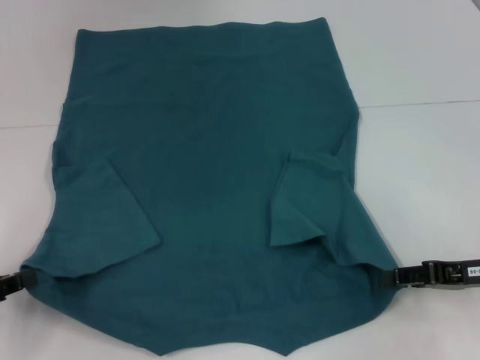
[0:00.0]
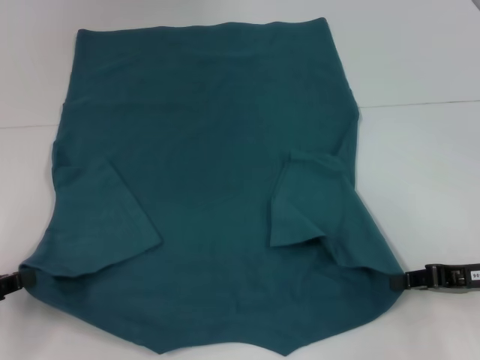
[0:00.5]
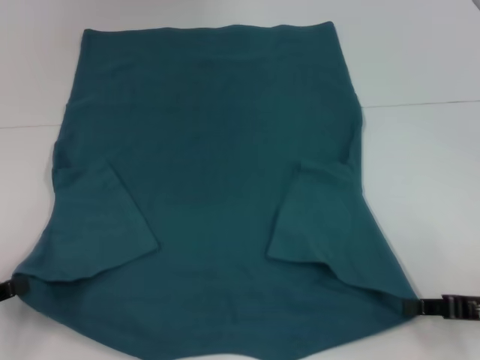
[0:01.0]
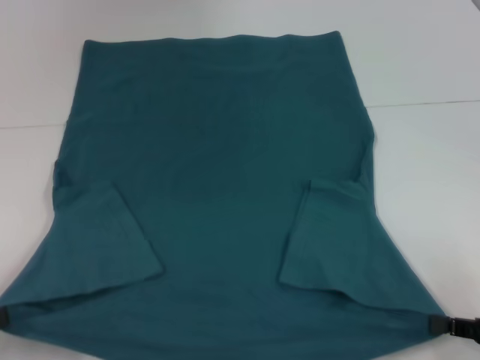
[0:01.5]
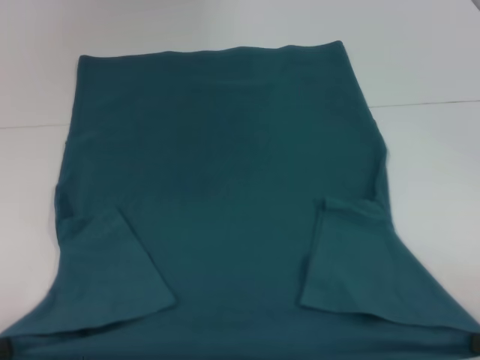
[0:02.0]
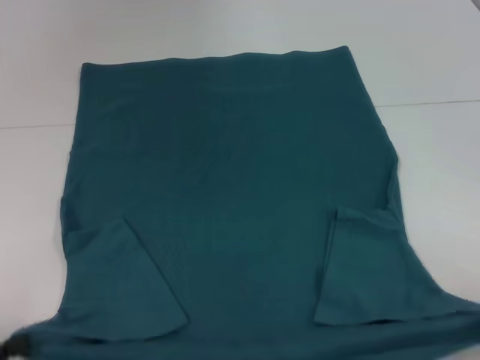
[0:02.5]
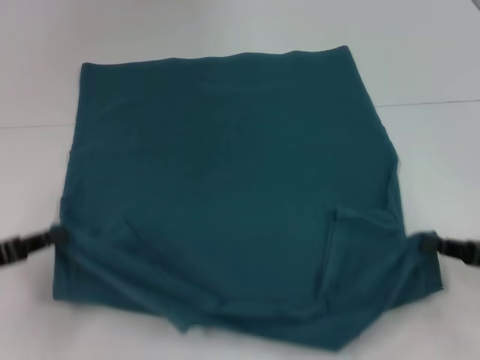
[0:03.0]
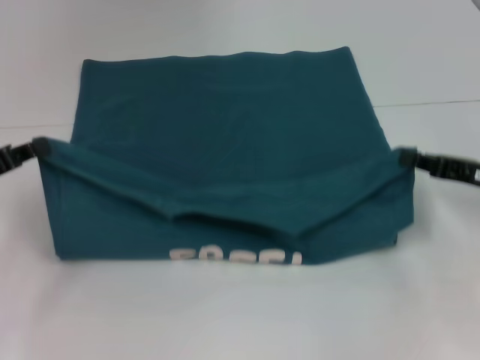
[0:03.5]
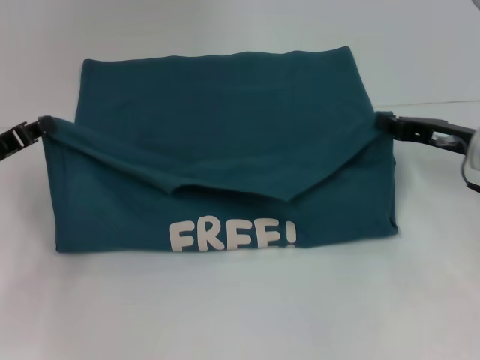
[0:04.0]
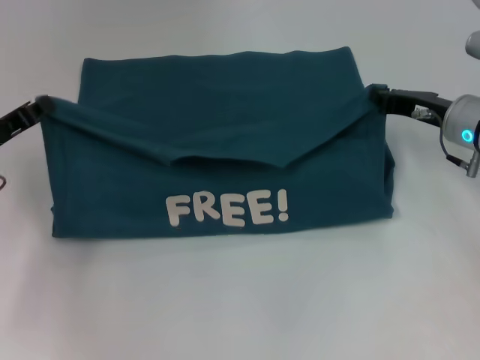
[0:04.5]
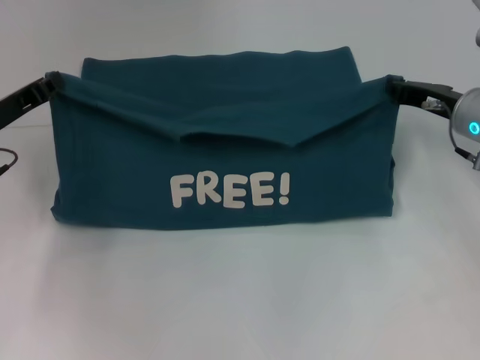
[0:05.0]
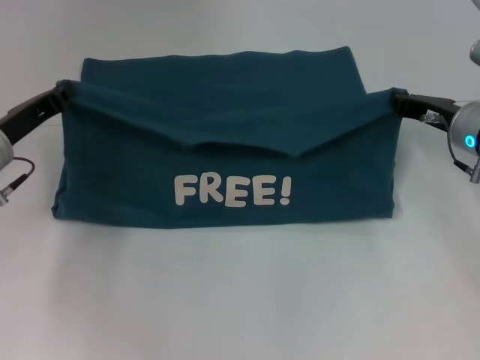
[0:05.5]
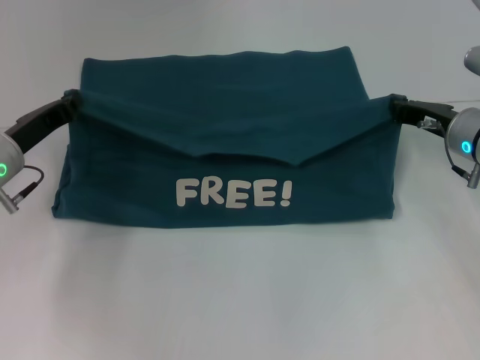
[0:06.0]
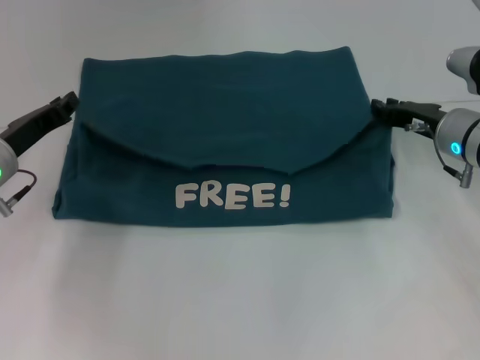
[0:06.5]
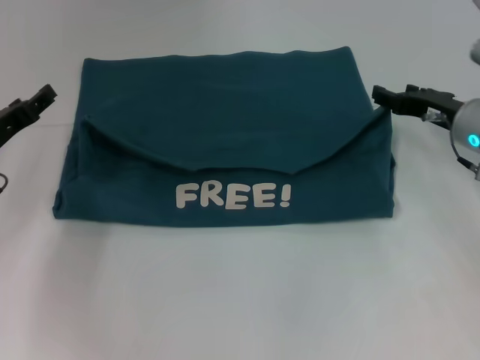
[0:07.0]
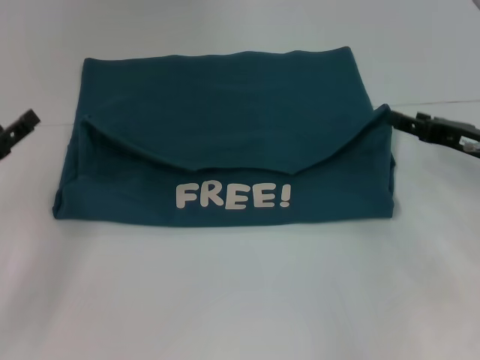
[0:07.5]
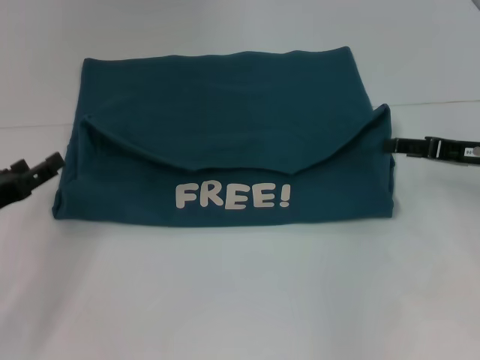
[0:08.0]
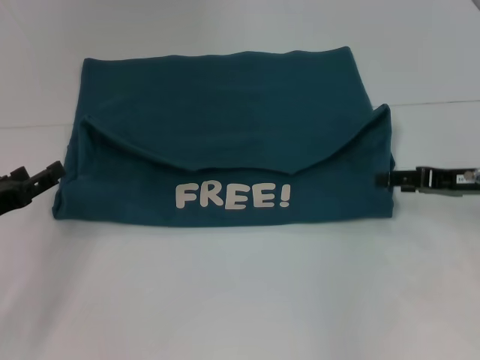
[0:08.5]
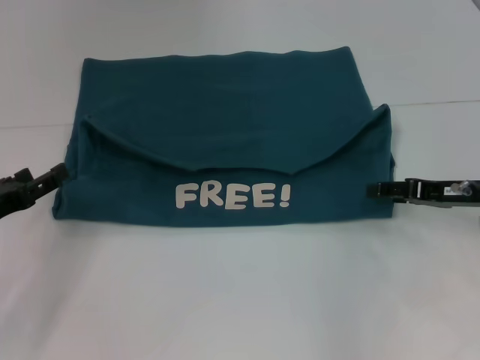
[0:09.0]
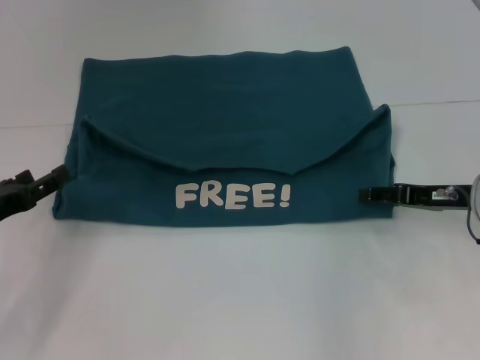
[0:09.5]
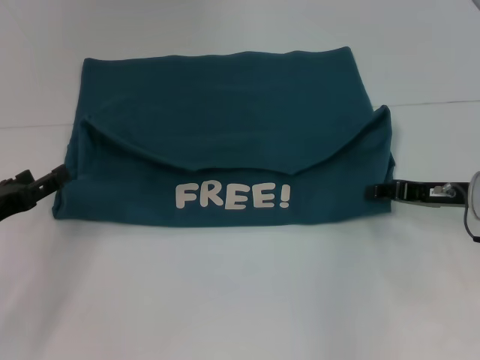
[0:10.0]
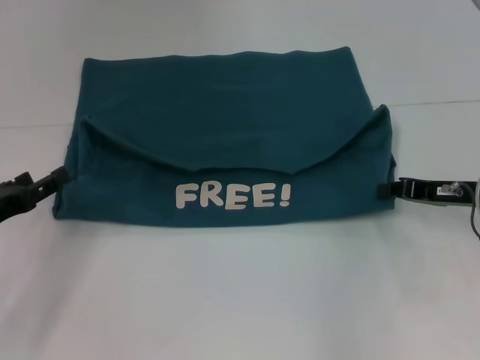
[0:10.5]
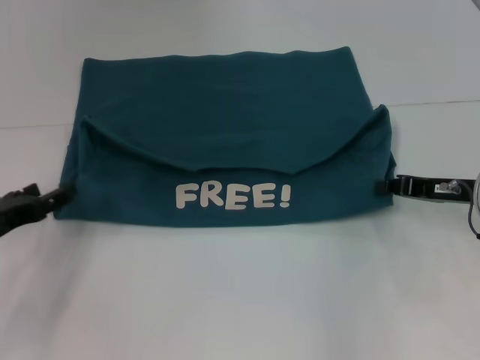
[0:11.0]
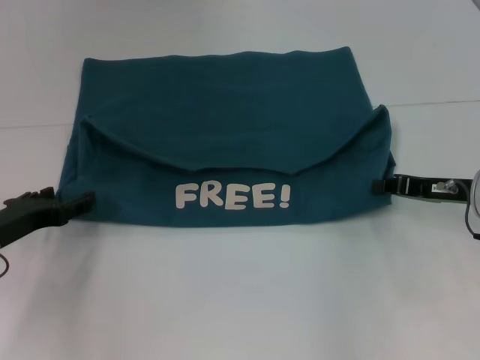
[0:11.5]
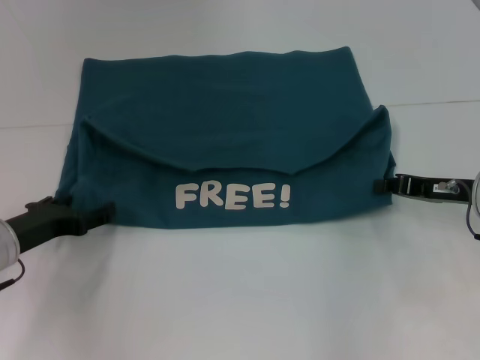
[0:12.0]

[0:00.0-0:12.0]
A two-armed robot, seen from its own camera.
Step, 0:01.0 to 0:06.5: Fold the clothes to the left.
Step, 0:01.0 to 0:06.5: Fold the clothes to the right.
0:00.0 to 0:02.0: The left gripper shifts about 10 cm backward. Meanwhile the right gripper shifts approximately 15 cm backward and to the right, and closes up.
0:02.0 to 0:04.0: The right gripper heads forward and to the left, covering about 25 cm. The left gripper heads forward, covering approximately 20 cm.
0:04.0 to 0:06.0: The left gripper travels to the right by some 5 cm.
0:06.0 to 0:08.0: The right gripper shifts some 5 cm to the right, and opens up. Meanwhile the left gripper shifts some 10 cm backward and to the left, and opens up.
0:08.0 to 0:10.0: The grippers make only small movements.
0:10.0 to 0:12.0: The left gripper moves approximately 5 cm; the right gripper closes its fingers.

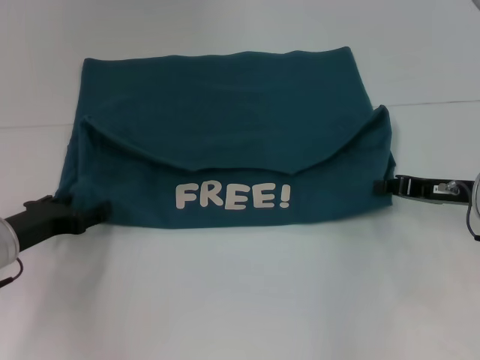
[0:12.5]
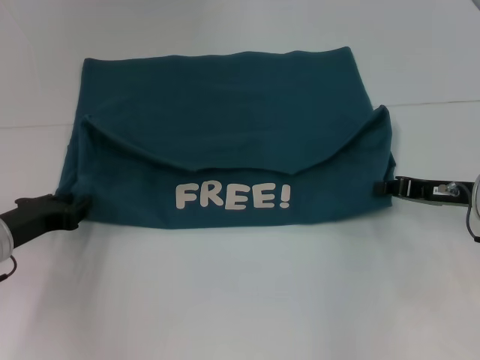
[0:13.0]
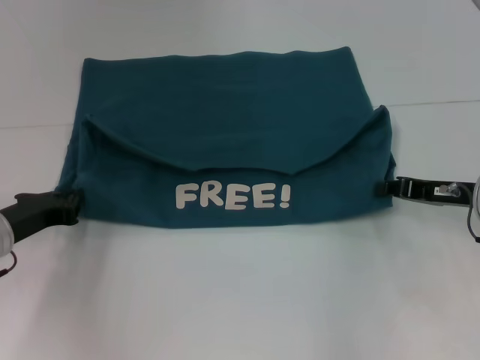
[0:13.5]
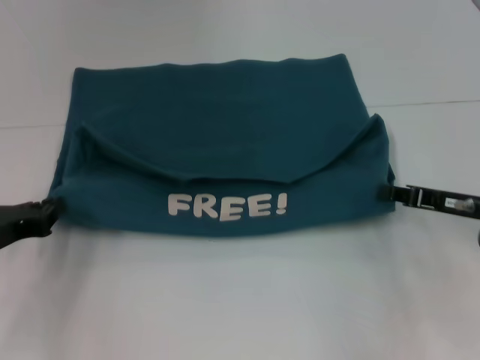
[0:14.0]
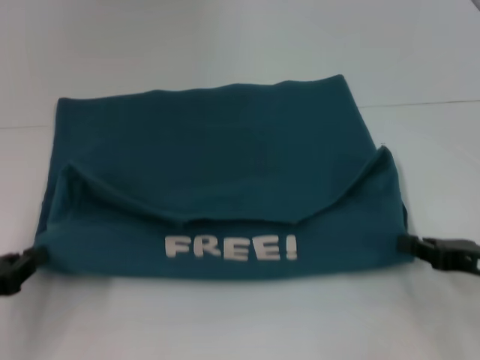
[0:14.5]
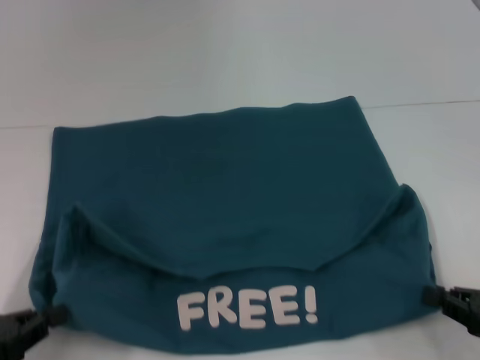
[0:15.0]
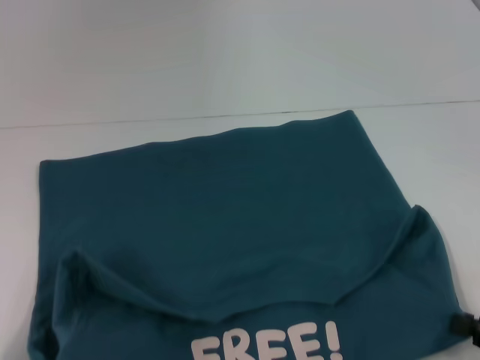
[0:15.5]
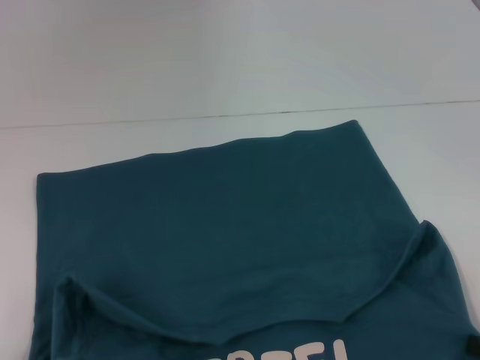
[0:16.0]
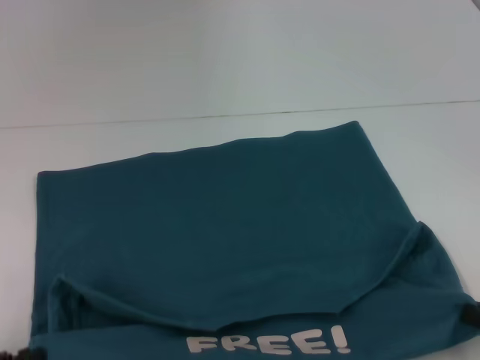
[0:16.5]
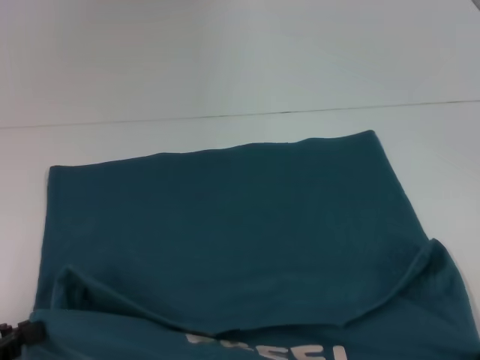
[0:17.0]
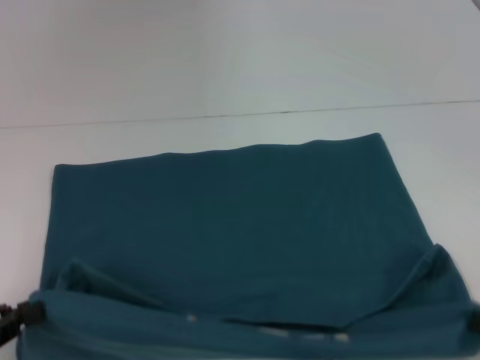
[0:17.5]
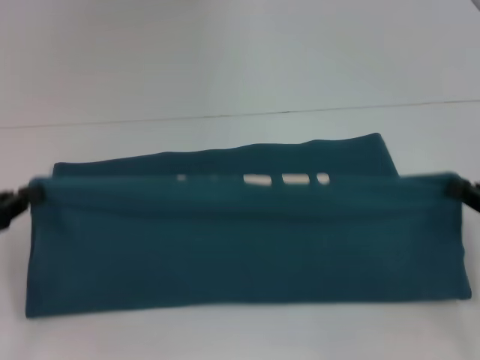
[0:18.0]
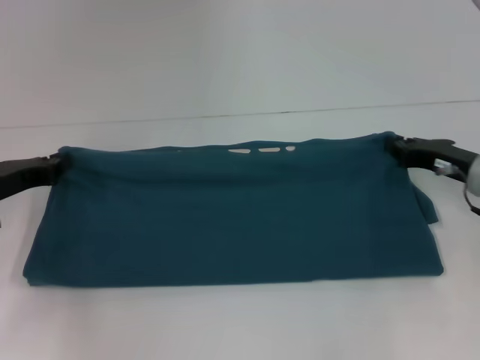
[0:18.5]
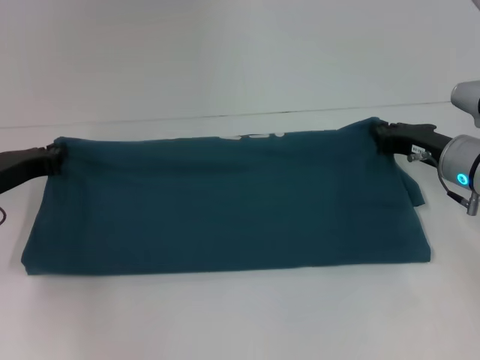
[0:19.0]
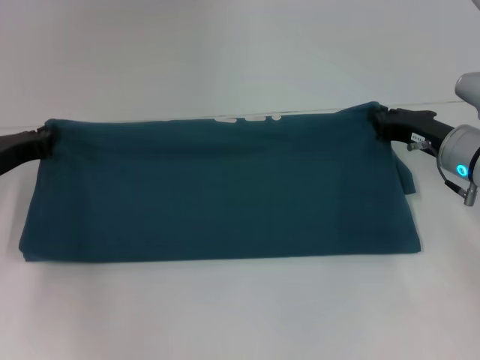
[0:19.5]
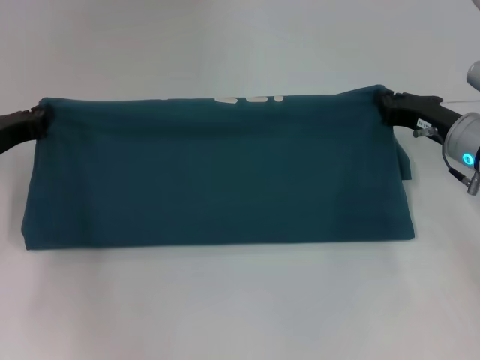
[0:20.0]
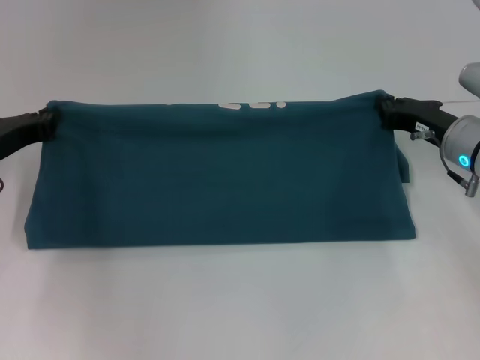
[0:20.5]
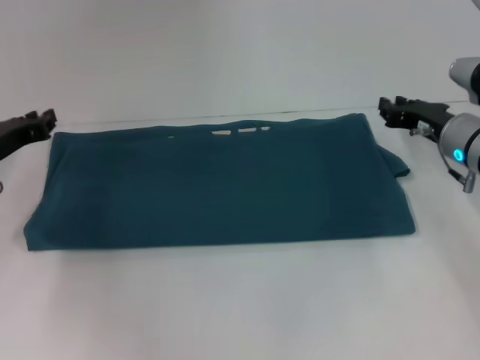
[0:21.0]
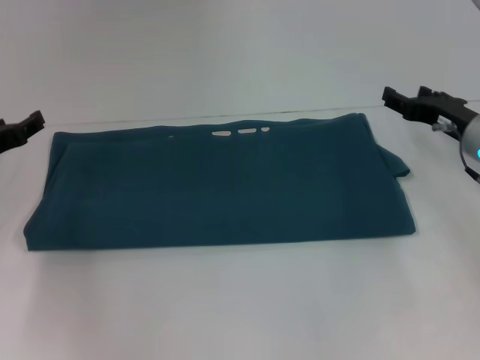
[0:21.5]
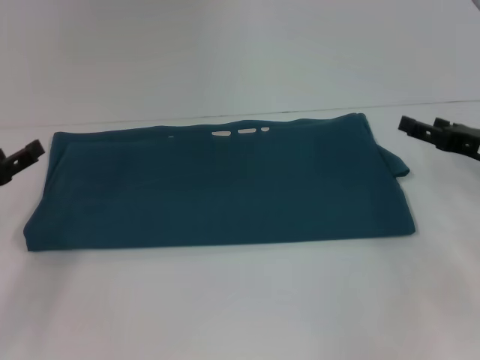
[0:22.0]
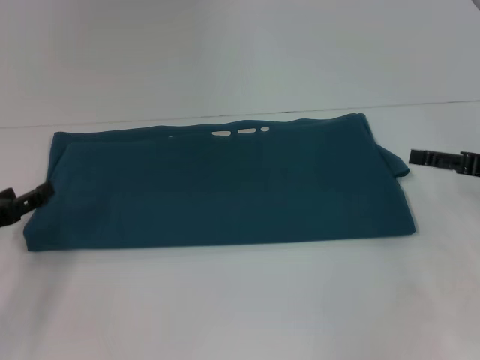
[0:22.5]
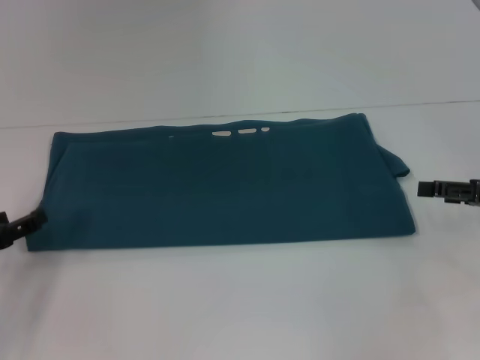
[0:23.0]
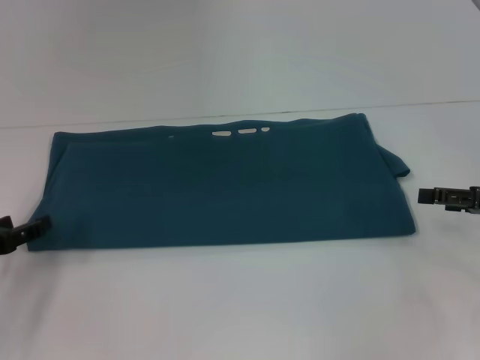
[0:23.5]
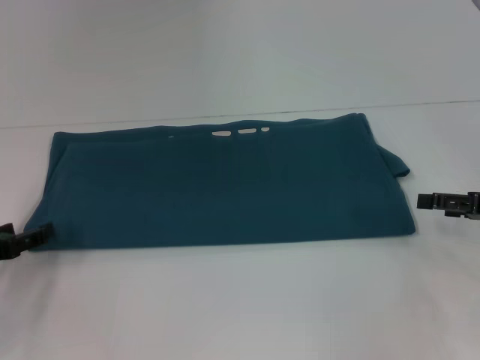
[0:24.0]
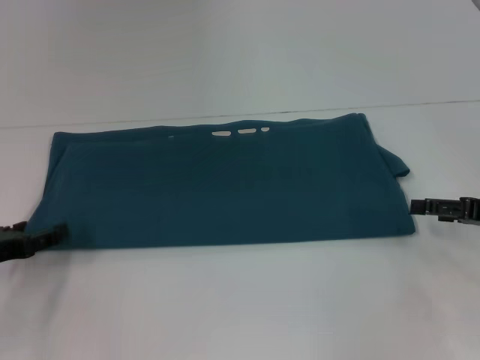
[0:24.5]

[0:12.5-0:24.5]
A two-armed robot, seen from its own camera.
Step, 0:12.5 to 0:15.0: Pull the clothes with your left hand.
Step, 0:12.5 to 0:15.0: Pull the clothes with your right hand.
Step, 0:15.5 to 0:21.0: Fold the clothes to the right.
0:12.5 to 0:14.5: The right gripper moves backward, about 10 cm, while the left gripper shifts approximately 10 cm backward and to the left, and closes its fingers.
0:14.5 to 0:16.5: The grippers both shift backward by some 10 cm.
0:16.5 to 0:18.5: The grippers both shift forward by approximately 20 cm.
0:20.5 to 0:22.5: The left gripper moves backward, about 10 cm, and opens its fingers; the right gripper shifts about 10 cm to the right and backward, and opens.
0:22.5 to 0:24.5: The grippers move only a little.

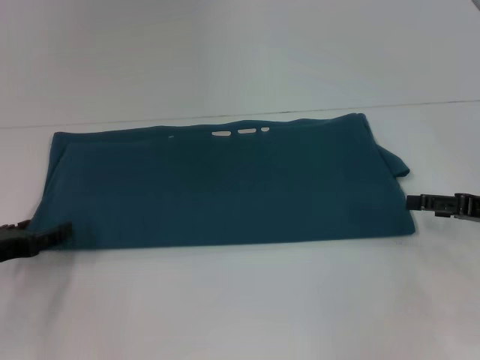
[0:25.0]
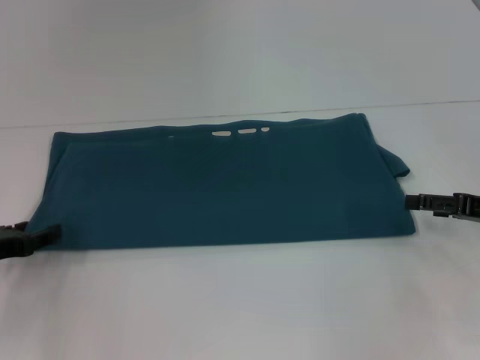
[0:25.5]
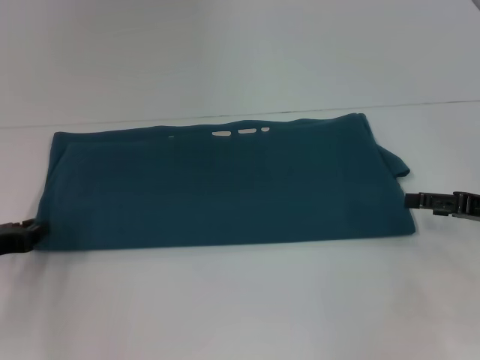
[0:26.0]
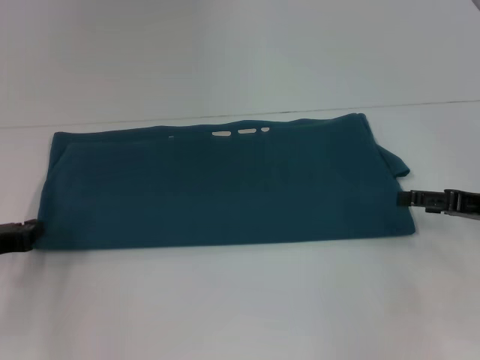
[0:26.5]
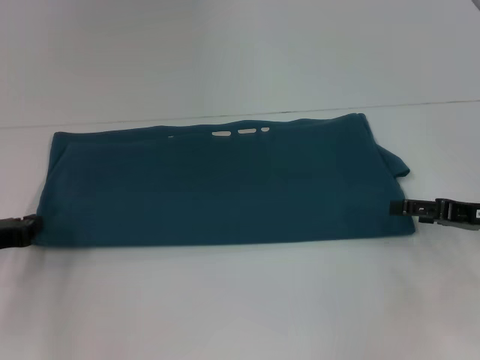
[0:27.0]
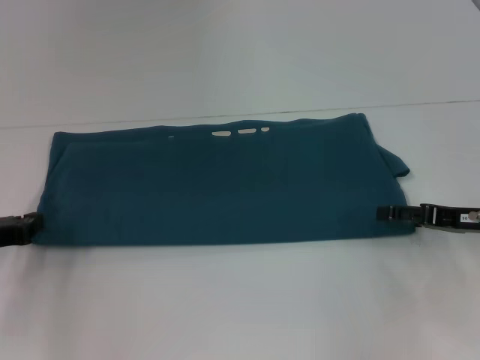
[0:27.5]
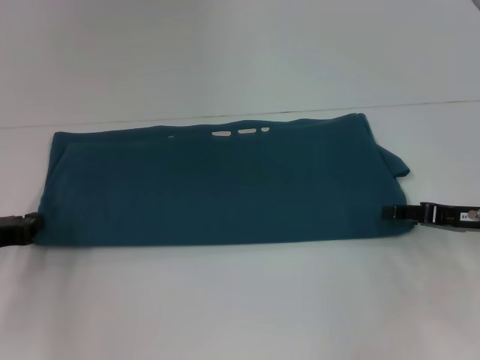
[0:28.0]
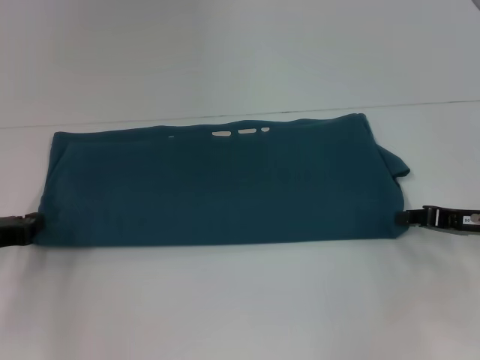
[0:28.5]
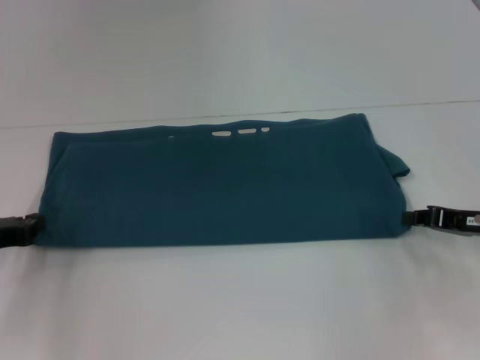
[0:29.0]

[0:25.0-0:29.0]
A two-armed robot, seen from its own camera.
0:25.0 to 0:27.0: The left gripper closes up.
0:27.0 to 0:29.0: The right gripper closes its fingers.
